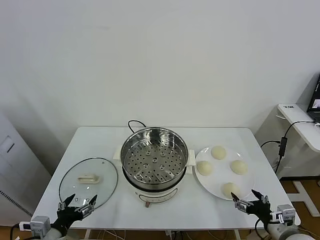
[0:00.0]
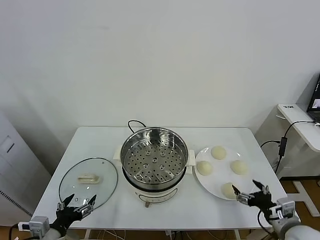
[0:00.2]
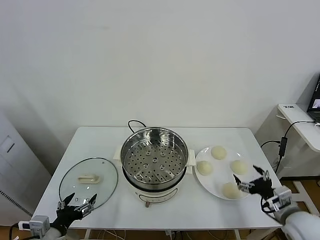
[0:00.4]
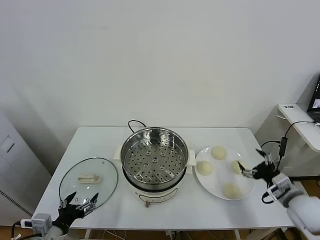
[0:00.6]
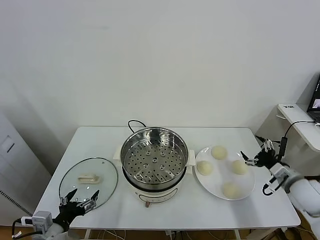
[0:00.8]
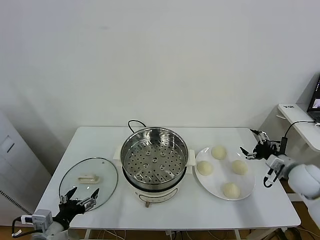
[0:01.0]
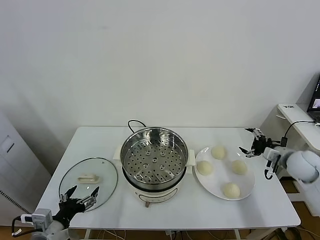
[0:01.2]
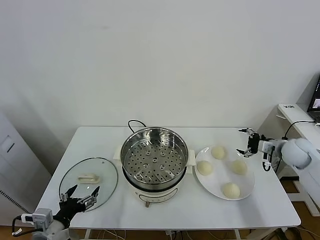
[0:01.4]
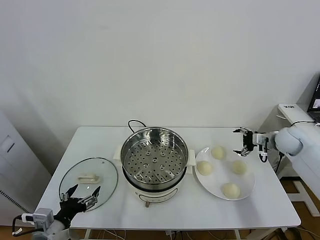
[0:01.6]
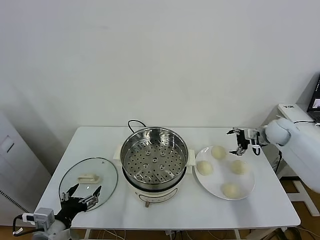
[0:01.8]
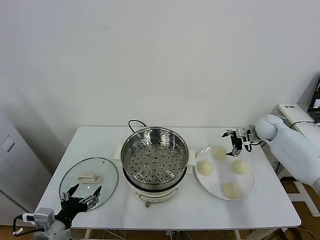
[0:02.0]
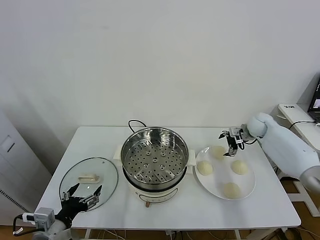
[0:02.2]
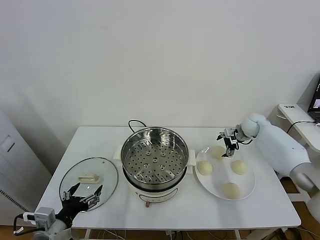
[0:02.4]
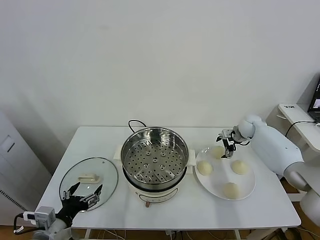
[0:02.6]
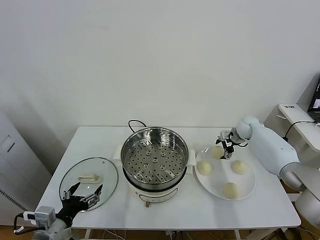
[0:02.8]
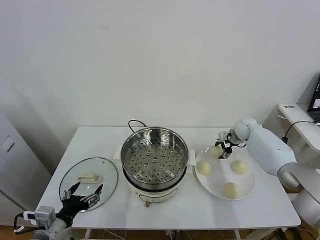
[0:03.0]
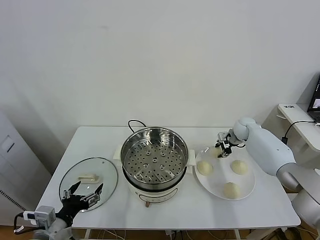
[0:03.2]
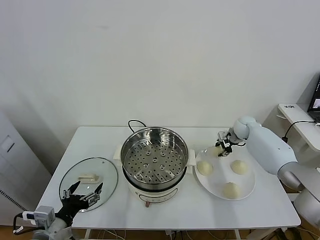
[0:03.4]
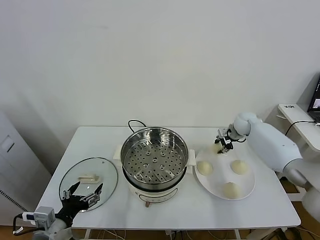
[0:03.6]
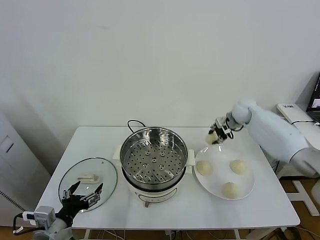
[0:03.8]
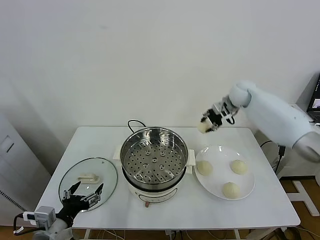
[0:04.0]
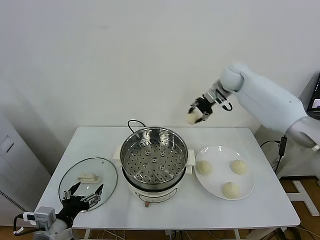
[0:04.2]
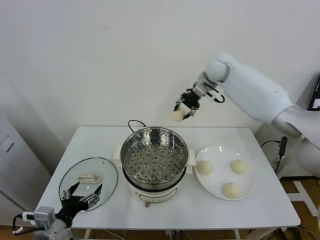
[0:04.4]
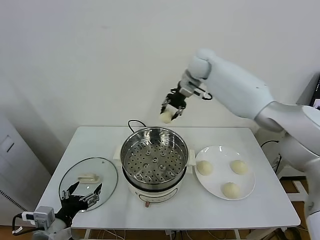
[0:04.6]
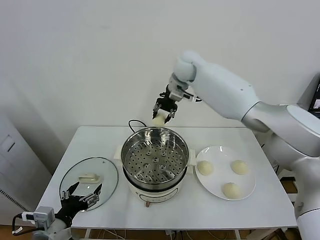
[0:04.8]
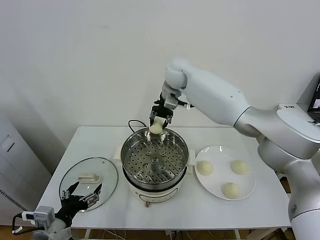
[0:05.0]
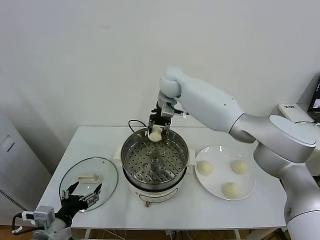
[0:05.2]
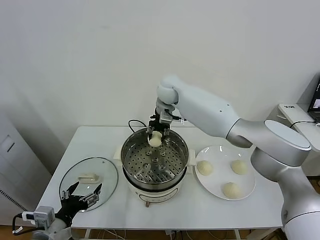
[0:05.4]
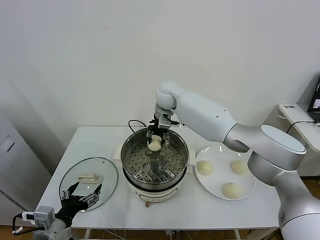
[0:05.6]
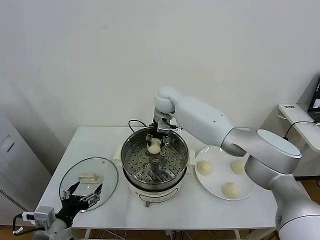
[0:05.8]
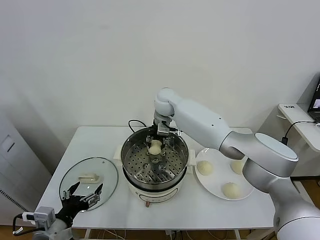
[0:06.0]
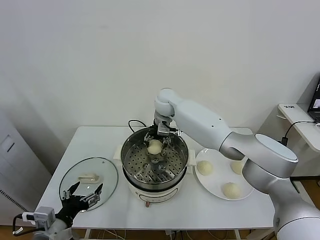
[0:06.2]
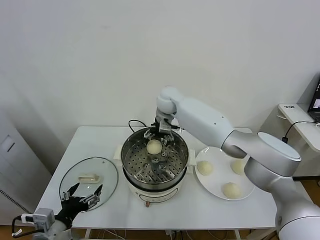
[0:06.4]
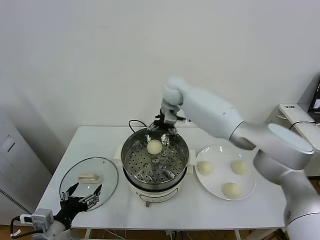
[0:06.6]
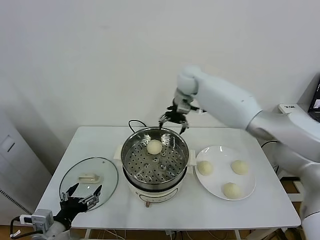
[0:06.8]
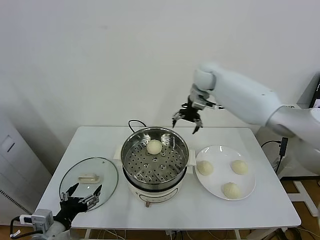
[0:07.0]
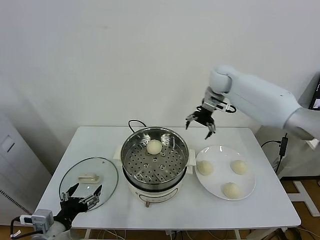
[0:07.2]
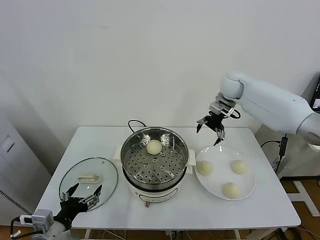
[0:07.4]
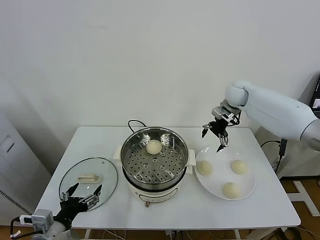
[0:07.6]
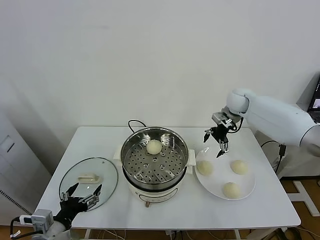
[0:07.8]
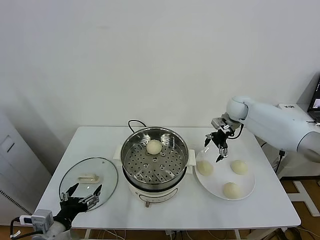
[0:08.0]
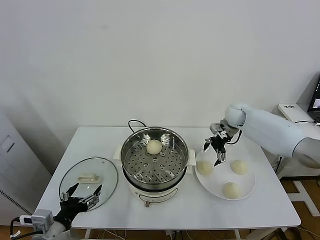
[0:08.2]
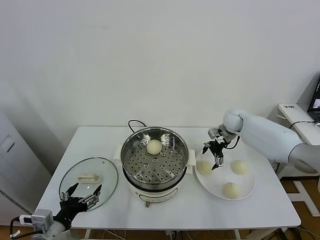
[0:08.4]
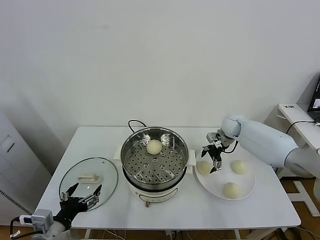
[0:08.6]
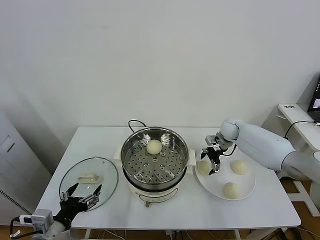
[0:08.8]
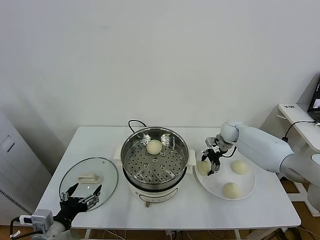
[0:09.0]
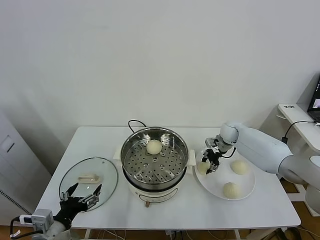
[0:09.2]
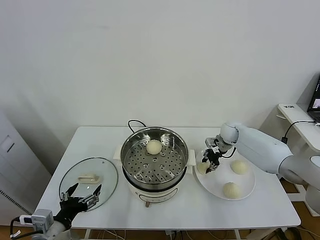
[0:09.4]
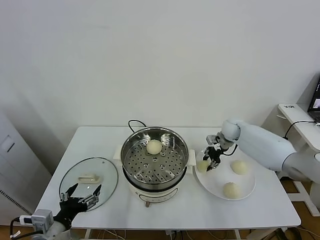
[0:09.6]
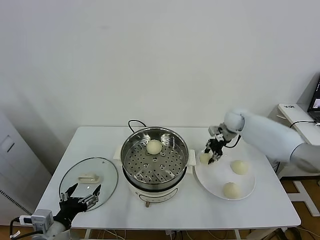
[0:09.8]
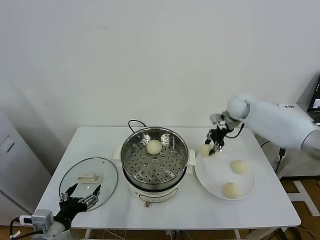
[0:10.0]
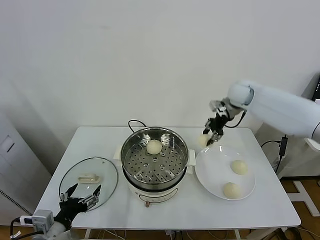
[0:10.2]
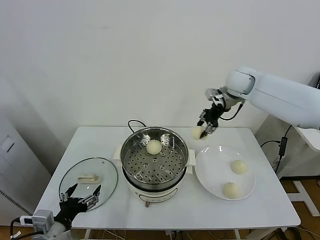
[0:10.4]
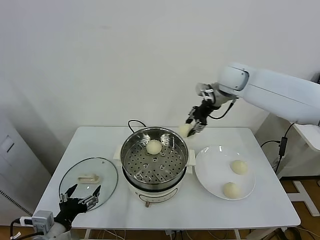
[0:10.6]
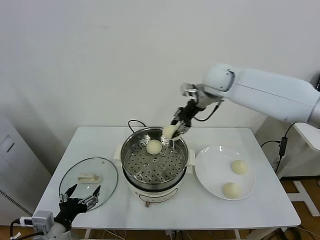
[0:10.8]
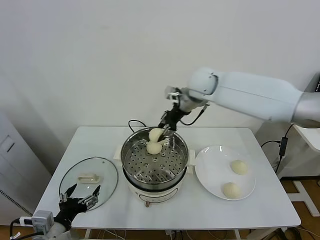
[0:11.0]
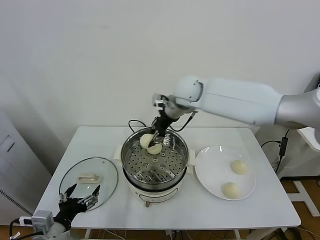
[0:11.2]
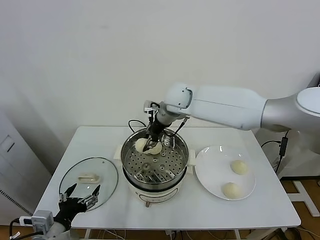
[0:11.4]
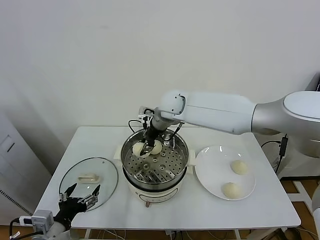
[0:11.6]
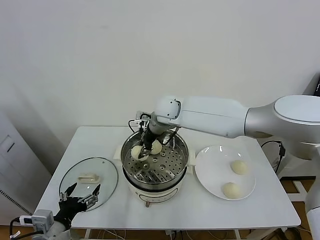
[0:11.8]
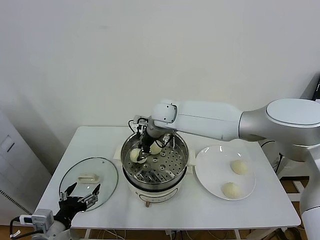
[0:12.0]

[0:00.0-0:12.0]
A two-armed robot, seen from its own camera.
Task of the whole recording: take steamed baozi put them in steamer.
Step, 0:00.0 to 0:02.8: Grasp the baozi in the plate with right gripper.
Step, 0:03.2 to 0:06.4: Place the baozi on the steamer with right gripper.
Step, 0:06.6 to 0:09.0: Grasp the baozi in the plate with right gripper.
0:01.6 to 0:03.0: The right gripper goes about 15 cm forward, to the left and downward, and closes its fingers.
0:03.0 to 0:04.4: The right gripper heads upward and to the left, covering some 35 cm.
0:04.4 to 0:06.0: The right gripper is displaced to the left and downward by roughly 20 cm.
0:06.0 to 0:07.6: The right gripper heads to the right, covering approximately 25 cm, and opens its fingers.
0:07.6 to 0:09.0: The right gripper travels downward by roughly 15 cm, and closes up.
0:09.0 to 0:10.4: The right gripper goes some 25 cm upward, and closes its fingers.
0:10.4 to 0:12.0: The right gripper goes approximately 25 cm to the left and downward.

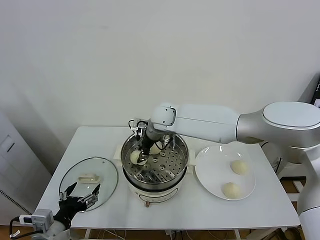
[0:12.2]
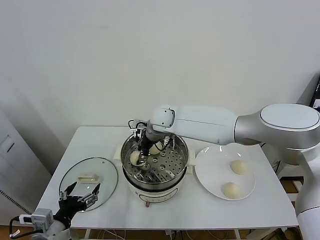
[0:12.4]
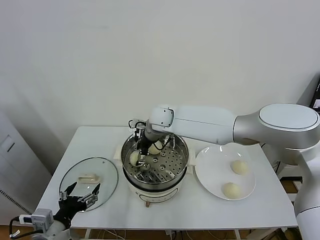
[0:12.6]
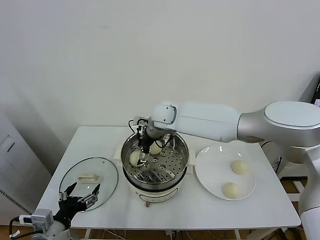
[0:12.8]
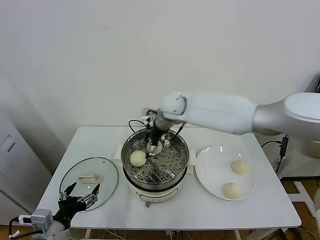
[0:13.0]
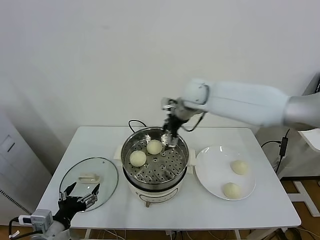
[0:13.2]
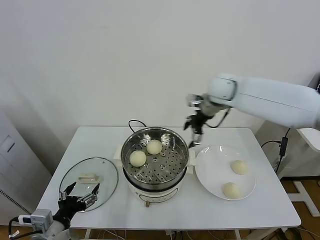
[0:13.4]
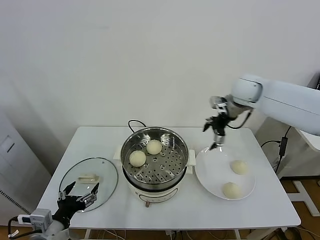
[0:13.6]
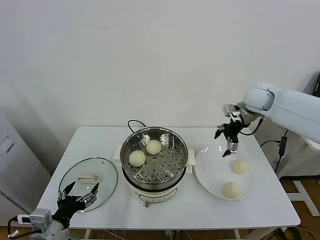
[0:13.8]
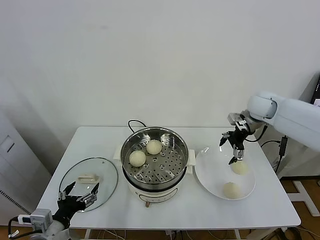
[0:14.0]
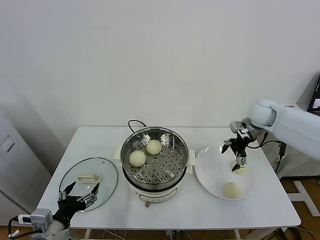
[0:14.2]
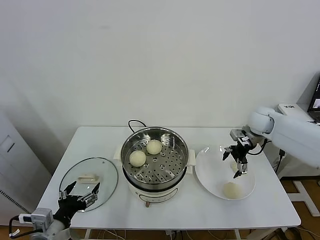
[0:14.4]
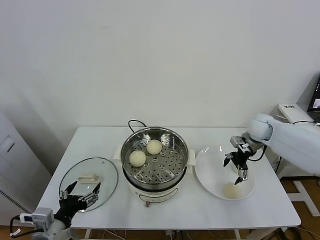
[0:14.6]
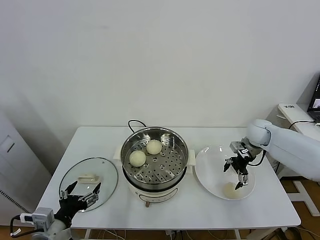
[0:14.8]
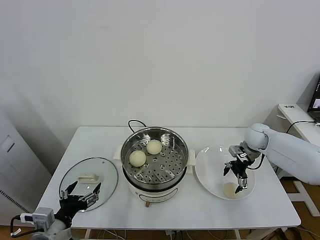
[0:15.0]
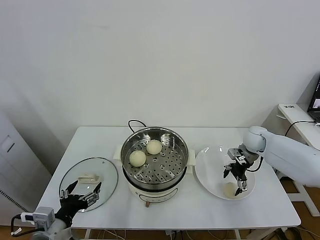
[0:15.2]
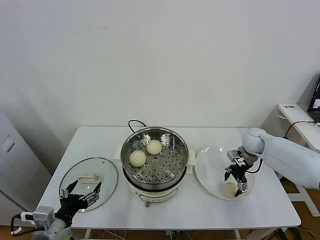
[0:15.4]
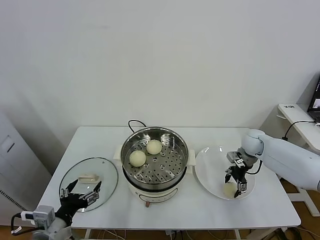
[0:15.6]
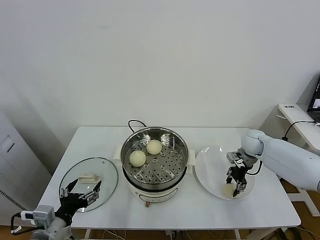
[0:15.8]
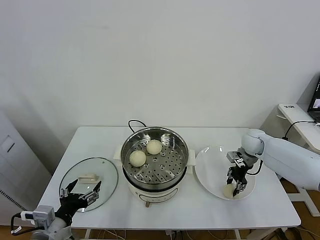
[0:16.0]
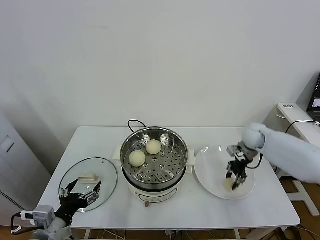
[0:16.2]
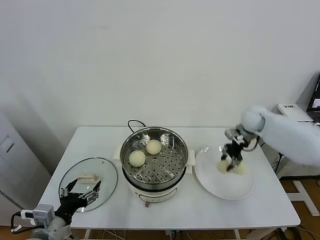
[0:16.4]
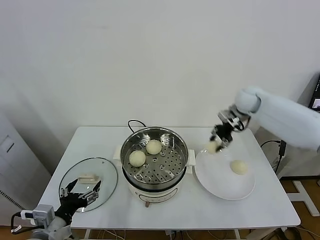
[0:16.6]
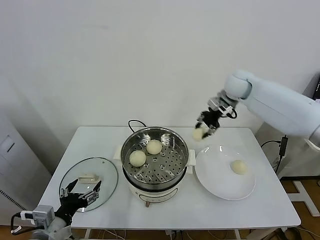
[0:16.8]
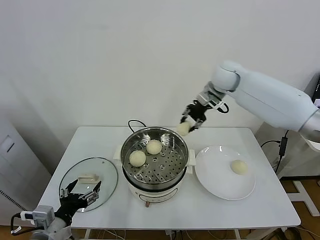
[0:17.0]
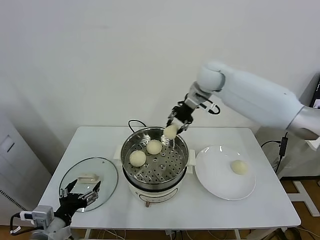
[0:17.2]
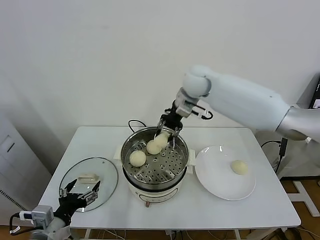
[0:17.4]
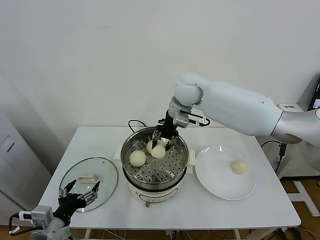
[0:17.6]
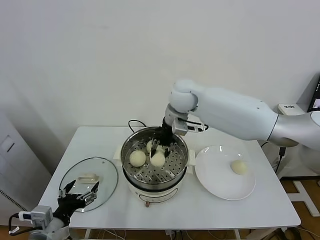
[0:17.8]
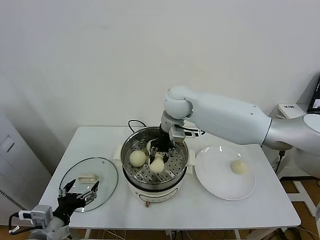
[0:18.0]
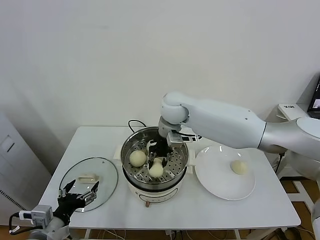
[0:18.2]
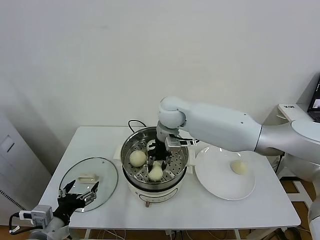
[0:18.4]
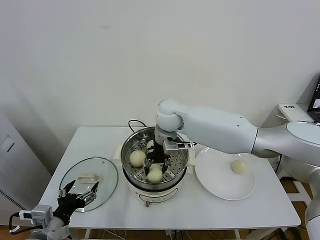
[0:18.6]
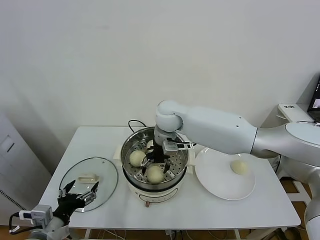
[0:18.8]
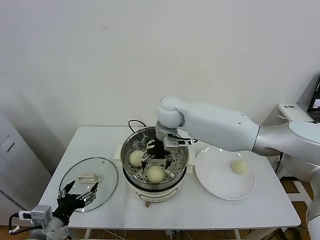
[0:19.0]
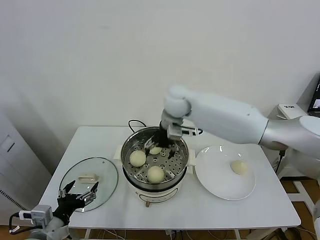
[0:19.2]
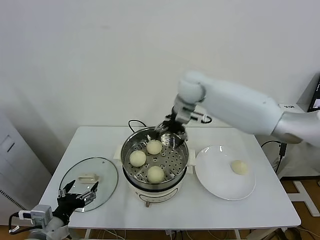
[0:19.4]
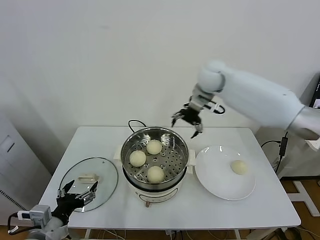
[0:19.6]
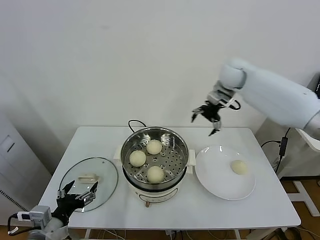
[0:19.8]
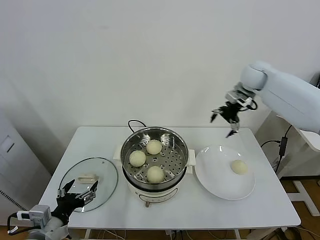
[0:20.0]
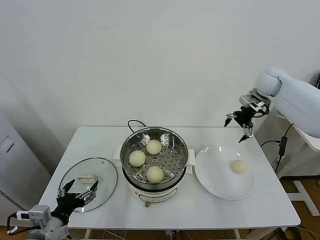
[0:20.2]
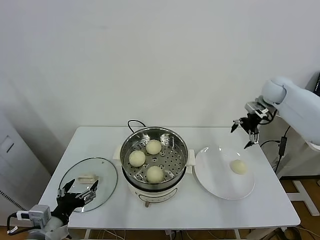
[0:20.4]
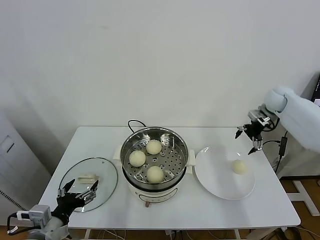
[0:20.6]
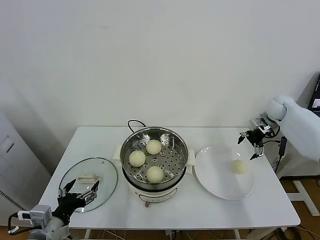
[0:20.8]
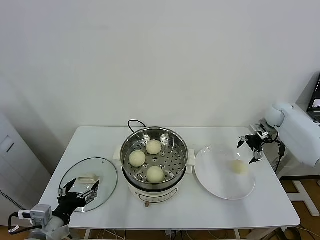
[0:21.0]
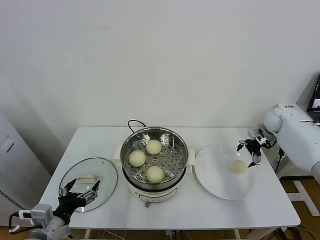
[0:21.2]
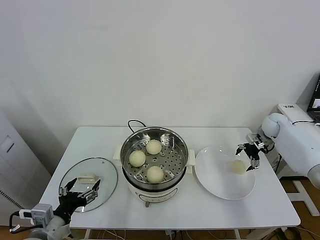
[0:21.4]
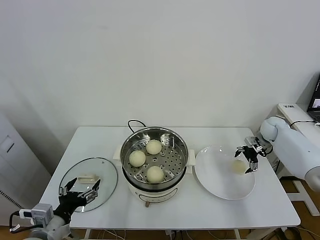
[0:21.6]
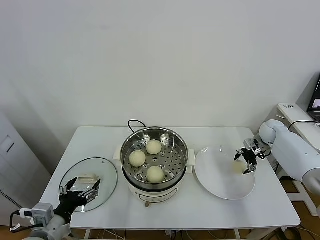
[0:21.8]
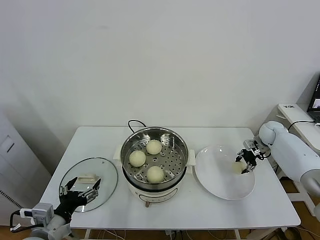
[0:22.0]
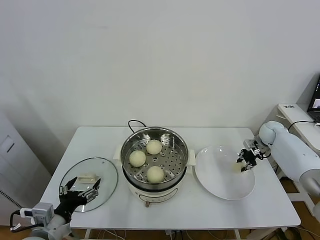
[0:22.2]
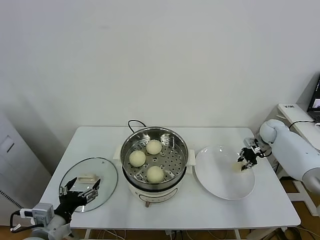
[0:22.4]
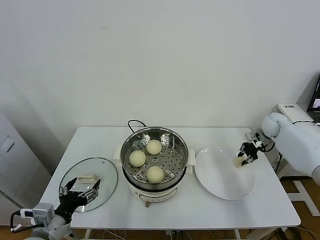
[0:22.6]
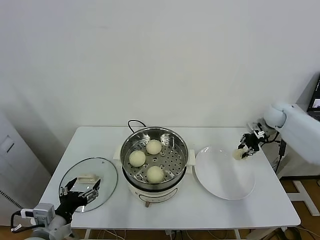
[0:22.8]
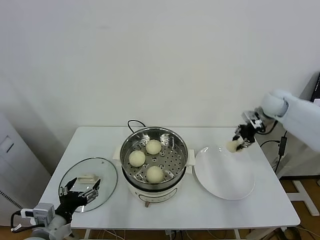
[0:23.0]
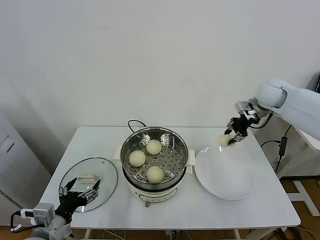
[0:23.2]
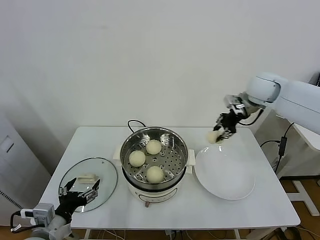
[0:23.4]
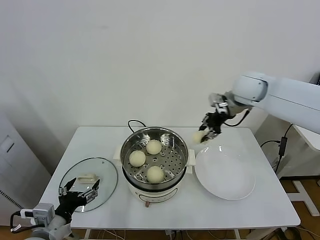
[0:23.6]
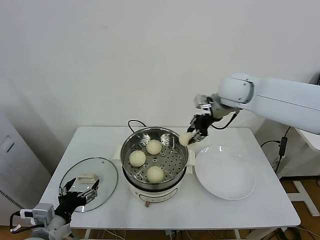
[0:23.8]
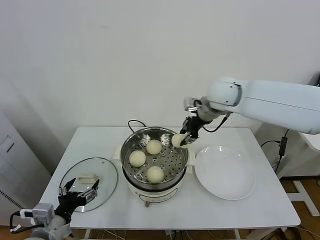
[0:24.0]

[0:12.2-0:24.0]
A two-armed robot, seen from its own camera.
Task of the whole recording: take steamed baozi put them in steamer.
Step, 0:13.0 to 0:15.6: Grasp the baozi in the plate with right gripper.
Step, 0:15.8 to 0:18.8: Place the baozi on the steamer with right gripper.
Step, 0:19.2 to 0:22.0: Grasp the baozi in the plate with right gripper.
0:12.2 to 0:13.6: The right gripper moves to the right, approximately 30 cm, and opens its fingers.
0:13.6 to 0:15.2: The right gripper heads downward, covering some 20 cm.
0:15.2 to 0:16.6: The right gripper is displaced upward and to the left by about 20 cm, and closes its fingers.
0:16.6 to 0:18.2: The right gripper goes some 25 cm to the left.
0:18.2 to 0:19.6: The right gripper moves to the right, upward and forward, approximately 20 cm, and opens up.
0:19.6 to 0:21.0: The right gripper shifts some 30 cm to the right and downward.
0:21.0 to 0:22.6: The right gripper closes its fingers.
0:22.6 to 0:24.0: The right gripper is displaced to the left and upward by some 35 cm.
